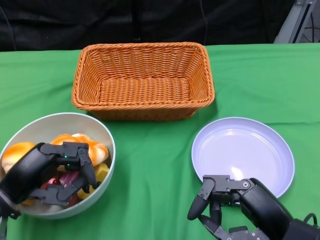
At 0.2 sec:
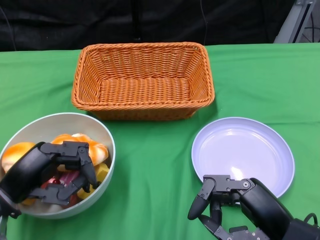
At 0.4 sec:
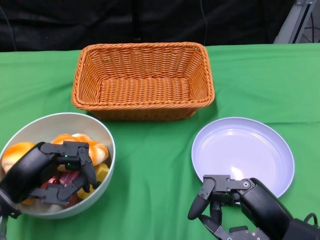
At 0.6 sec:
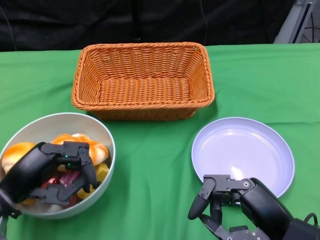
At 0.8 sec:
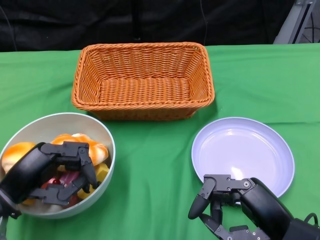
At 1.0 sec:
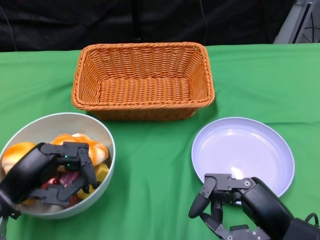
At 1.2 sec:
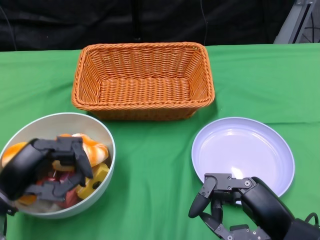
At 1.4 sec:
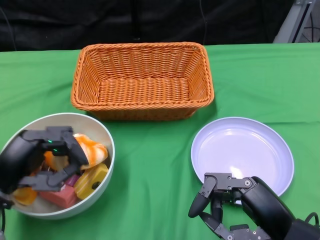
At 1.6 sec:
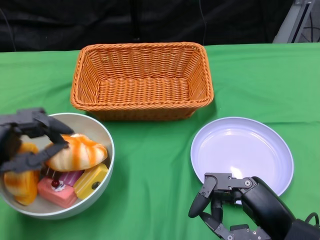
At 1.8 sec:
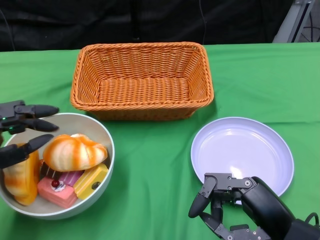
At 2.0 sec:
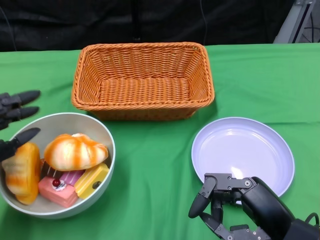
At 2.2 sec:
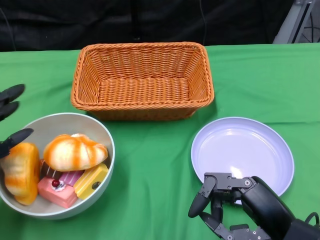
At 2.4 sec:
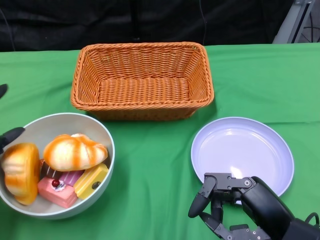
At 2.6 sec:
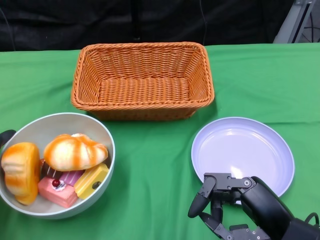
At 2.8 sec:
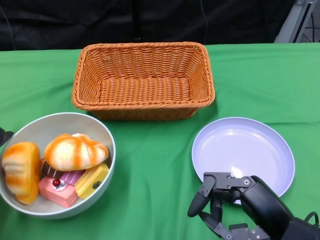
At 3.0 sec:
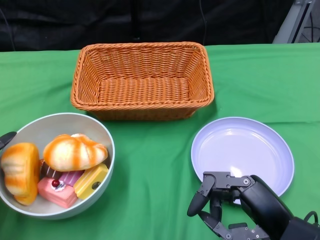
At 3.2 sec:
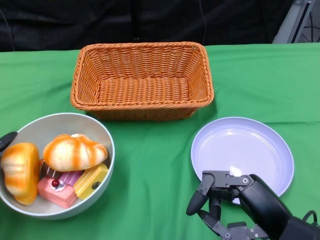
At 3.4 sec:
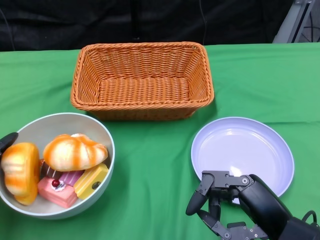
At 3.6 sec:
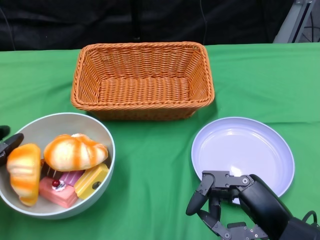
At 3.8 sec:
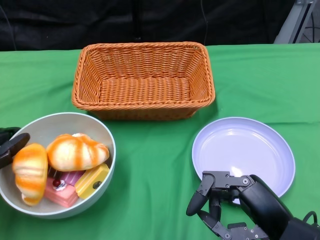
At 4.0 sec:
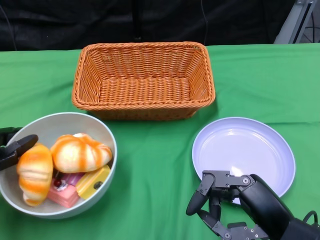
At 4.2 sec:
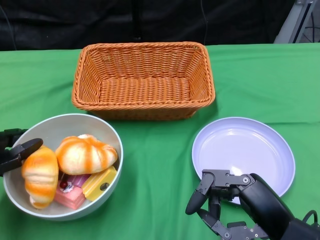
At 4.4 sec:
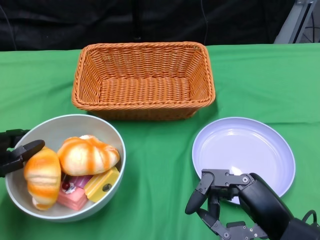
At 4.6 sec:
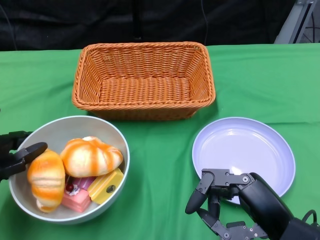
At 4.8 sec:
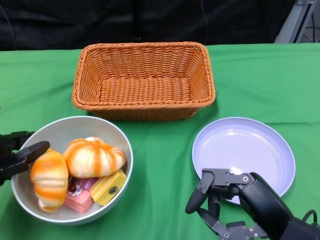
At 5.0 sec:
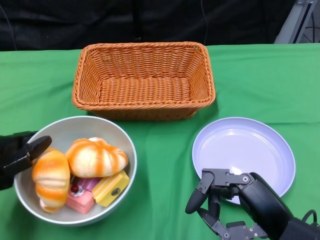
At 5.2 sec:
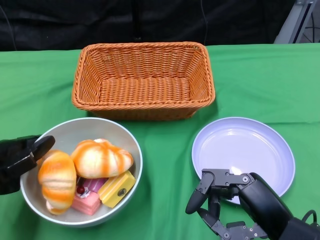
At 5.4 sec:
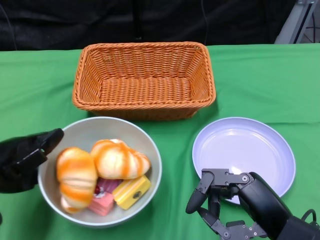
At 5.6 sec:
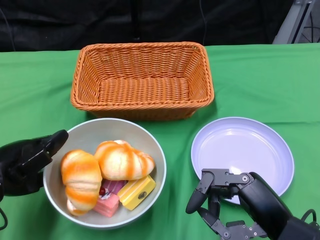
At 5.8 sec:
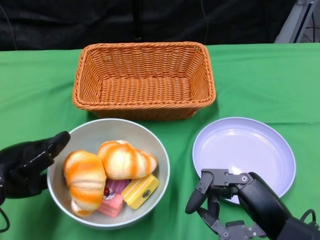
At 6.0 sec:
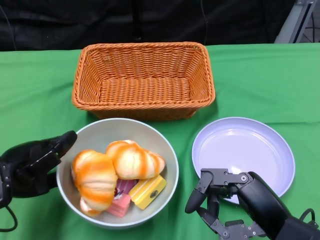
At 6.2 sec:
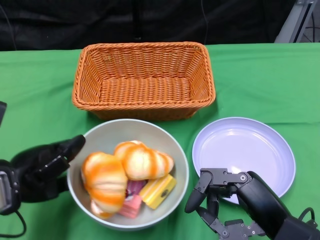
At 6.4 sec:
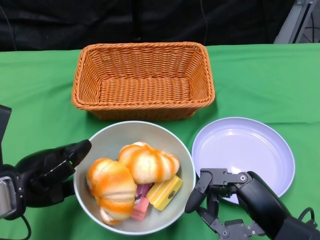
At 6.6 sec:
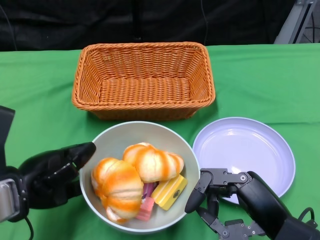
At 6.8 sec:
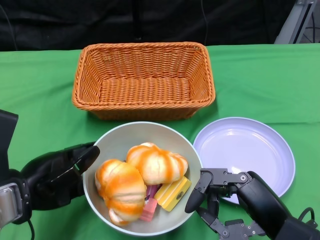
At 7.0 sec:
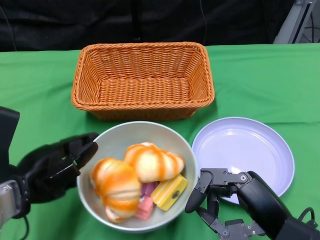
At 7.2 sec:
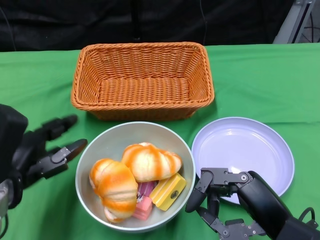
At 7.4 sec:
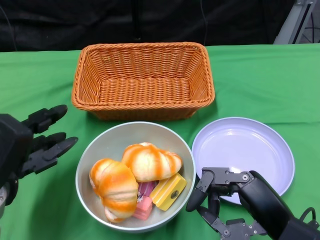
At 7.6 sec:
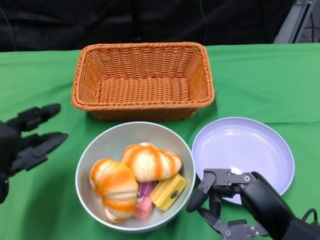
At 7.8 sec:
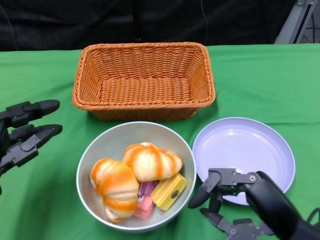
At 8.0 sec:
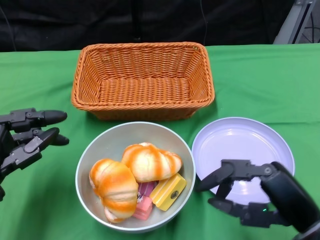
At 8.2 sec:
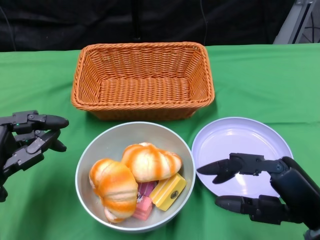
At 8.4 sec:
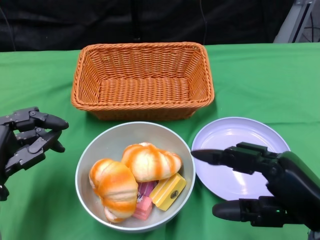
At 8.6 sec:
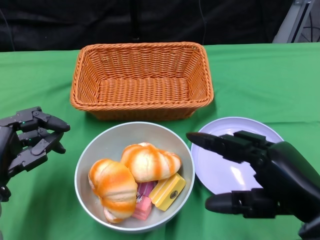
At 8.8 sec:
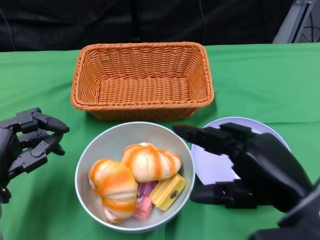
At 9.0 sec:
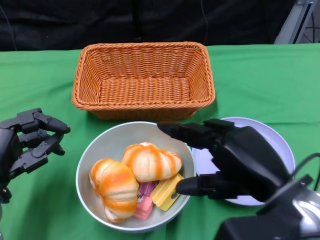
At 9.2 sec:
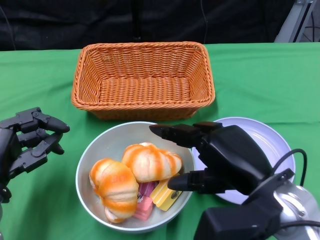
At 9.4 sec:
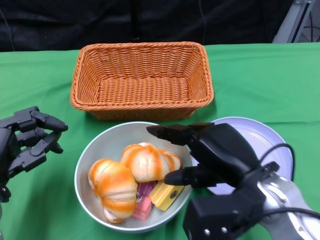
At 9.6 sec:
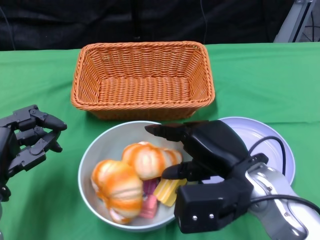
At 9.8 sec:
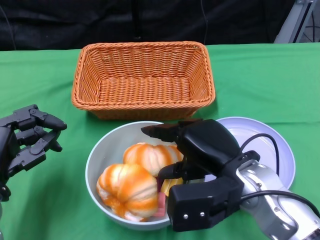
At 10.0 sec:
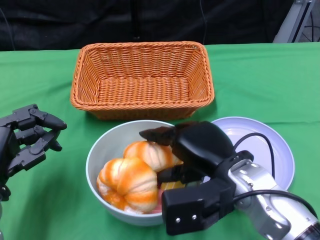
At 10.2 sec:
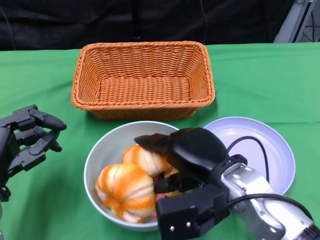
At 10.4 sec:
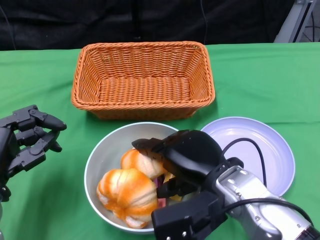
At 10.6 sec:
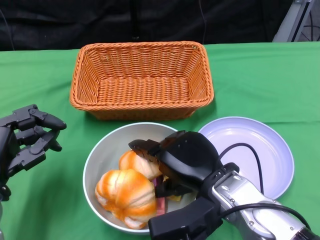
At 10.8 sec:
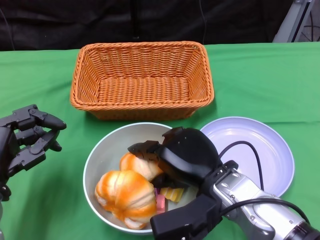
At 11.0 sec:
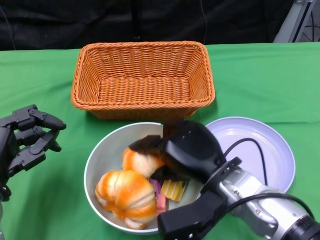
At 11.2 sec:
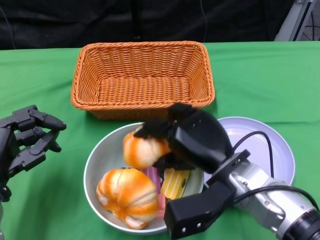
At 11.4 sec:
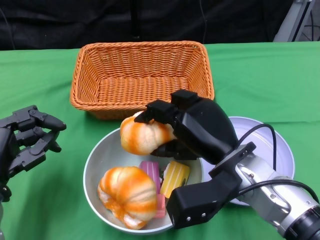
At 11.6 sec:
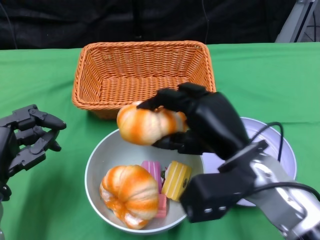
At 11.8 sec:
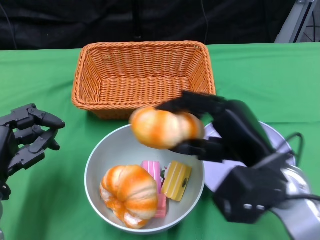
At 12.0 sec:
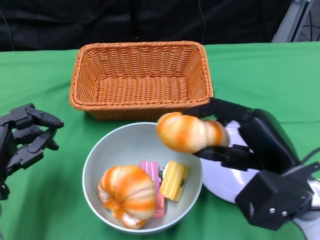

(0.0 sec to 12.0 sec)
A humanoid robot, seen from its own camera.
Step, 0.0 sec - 7.8 sec: Push the bowl to the center of the table using the left gripper.
1.6 sec - 3.0 sec: The left hand ends up some 5 cm from where it was.
4.4 sec - 6.0 sec: The left hand shifts by roughly 5 cm.
7.6 sec - 9.0 sec: The right hand heads upward, covering roughly 5 cm.
9.0 sec - 10.4 sec: The right hand heads to the left and forward, covering some 10 cm.
10.4 sec - 12.0 sec: The right hand travels to the right by approximately 10 cm.

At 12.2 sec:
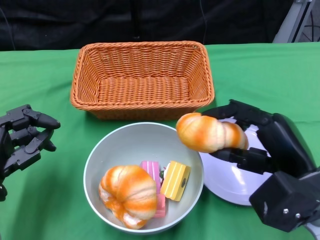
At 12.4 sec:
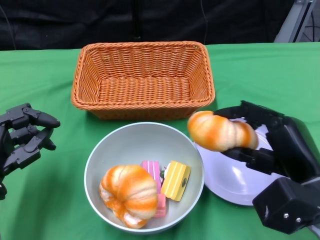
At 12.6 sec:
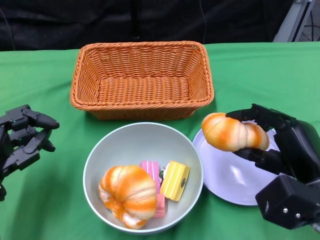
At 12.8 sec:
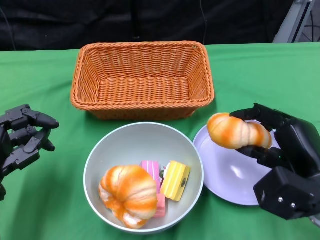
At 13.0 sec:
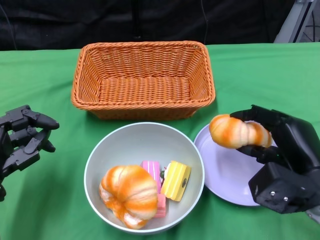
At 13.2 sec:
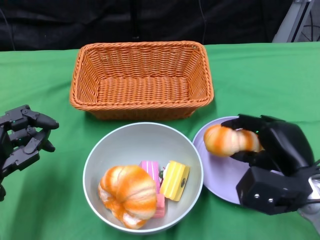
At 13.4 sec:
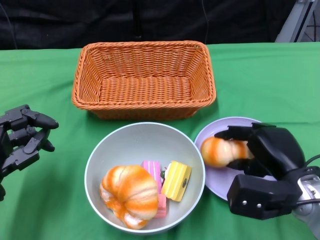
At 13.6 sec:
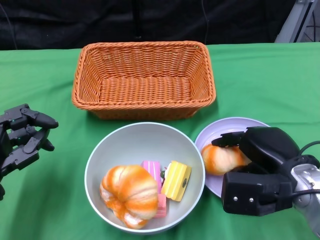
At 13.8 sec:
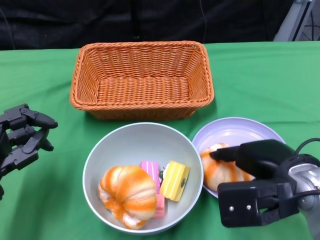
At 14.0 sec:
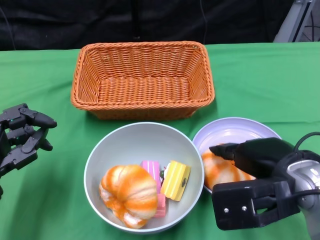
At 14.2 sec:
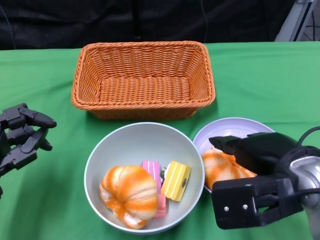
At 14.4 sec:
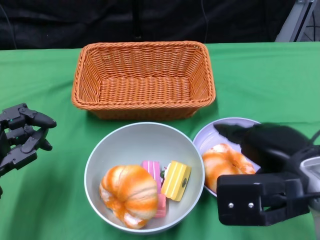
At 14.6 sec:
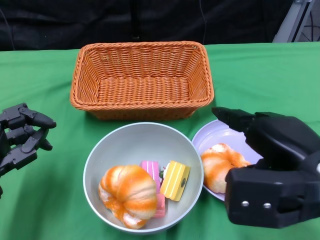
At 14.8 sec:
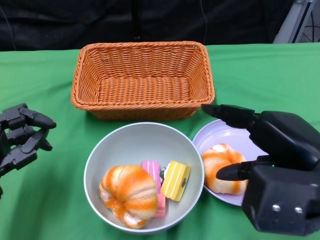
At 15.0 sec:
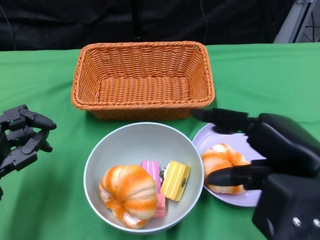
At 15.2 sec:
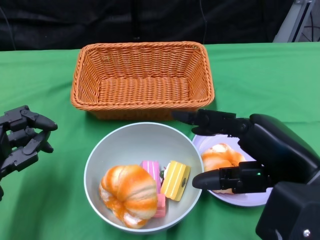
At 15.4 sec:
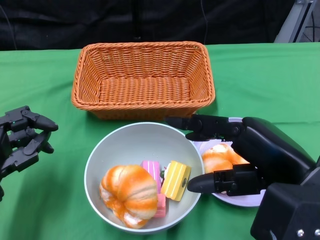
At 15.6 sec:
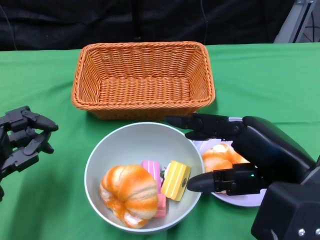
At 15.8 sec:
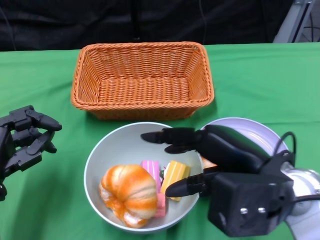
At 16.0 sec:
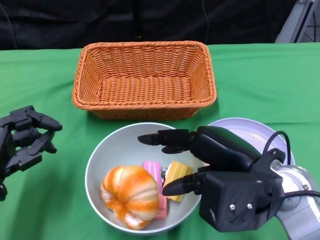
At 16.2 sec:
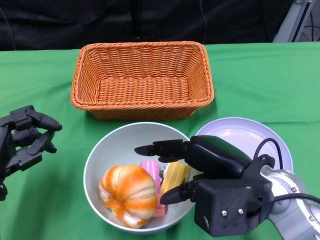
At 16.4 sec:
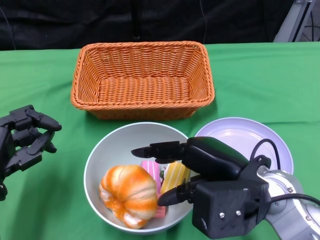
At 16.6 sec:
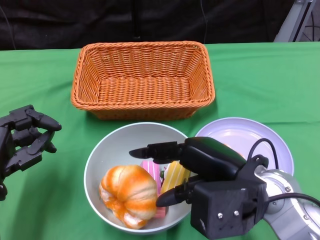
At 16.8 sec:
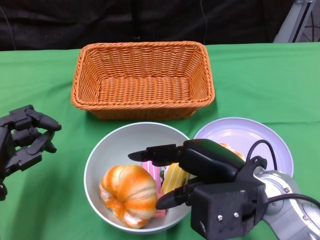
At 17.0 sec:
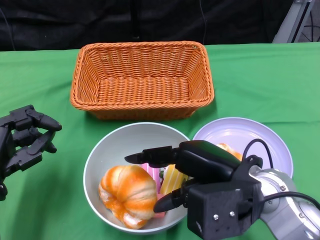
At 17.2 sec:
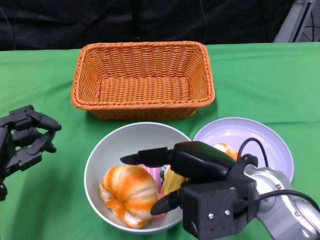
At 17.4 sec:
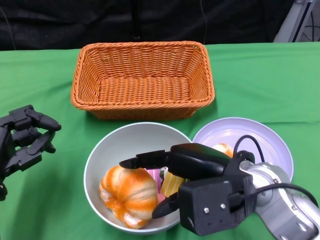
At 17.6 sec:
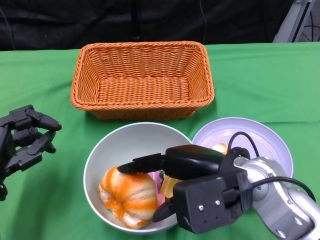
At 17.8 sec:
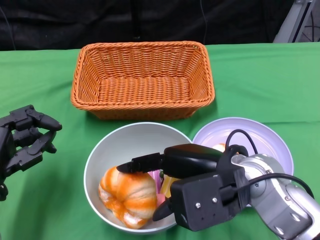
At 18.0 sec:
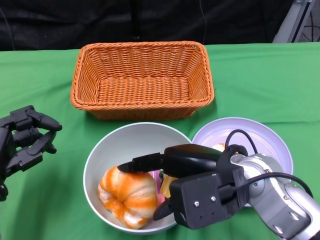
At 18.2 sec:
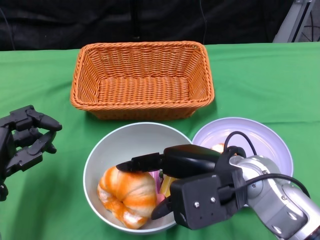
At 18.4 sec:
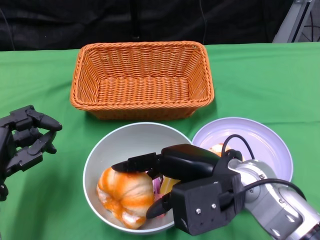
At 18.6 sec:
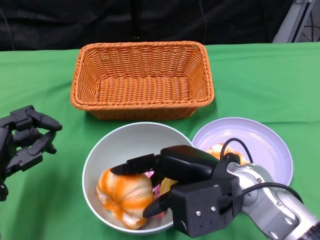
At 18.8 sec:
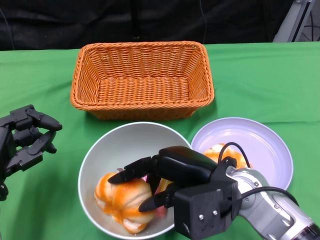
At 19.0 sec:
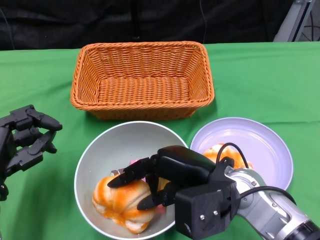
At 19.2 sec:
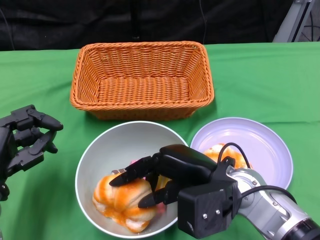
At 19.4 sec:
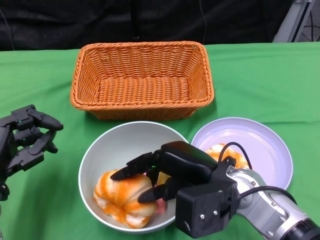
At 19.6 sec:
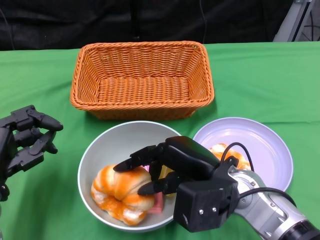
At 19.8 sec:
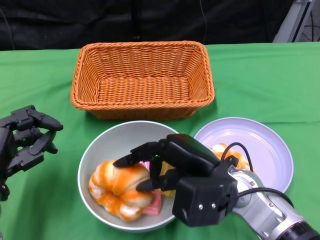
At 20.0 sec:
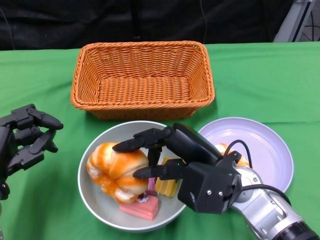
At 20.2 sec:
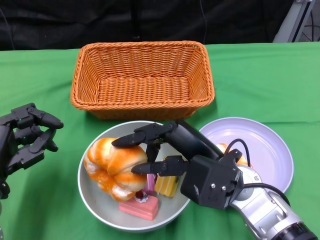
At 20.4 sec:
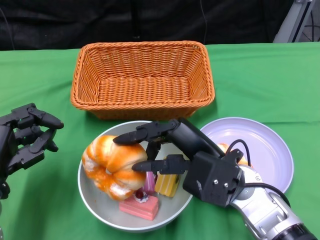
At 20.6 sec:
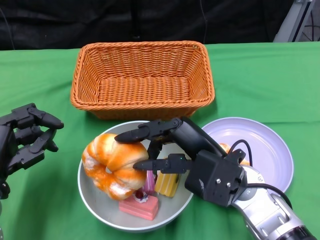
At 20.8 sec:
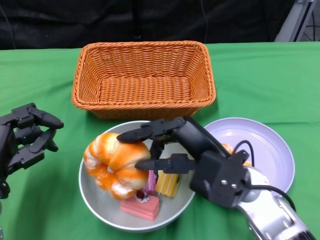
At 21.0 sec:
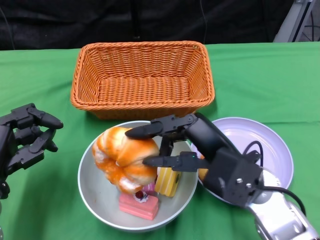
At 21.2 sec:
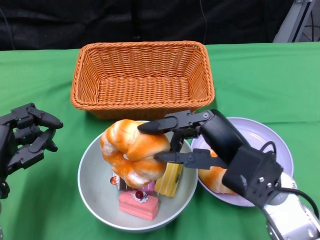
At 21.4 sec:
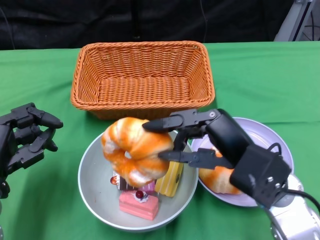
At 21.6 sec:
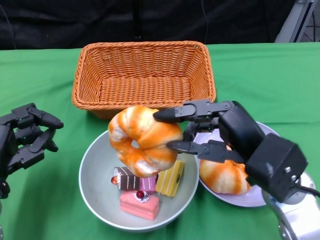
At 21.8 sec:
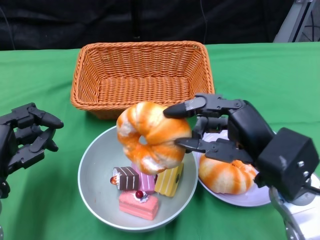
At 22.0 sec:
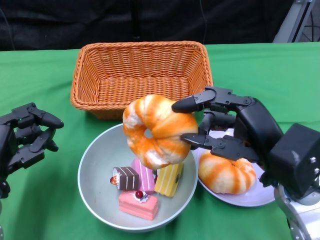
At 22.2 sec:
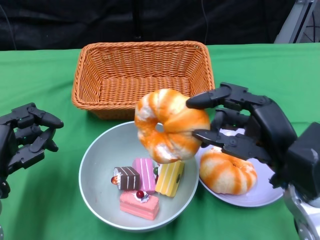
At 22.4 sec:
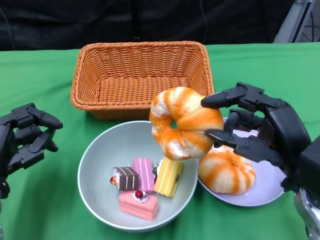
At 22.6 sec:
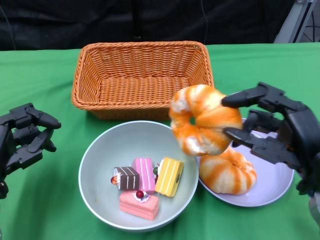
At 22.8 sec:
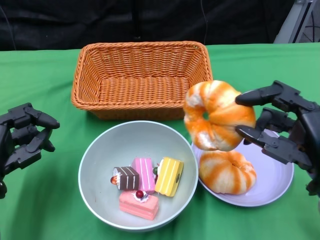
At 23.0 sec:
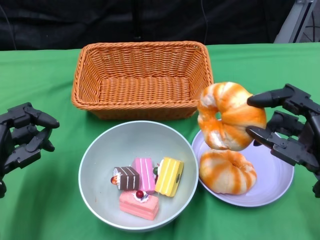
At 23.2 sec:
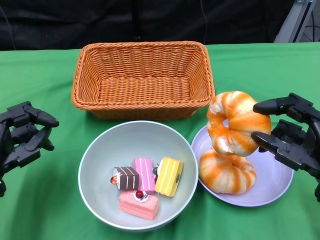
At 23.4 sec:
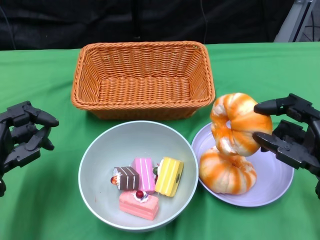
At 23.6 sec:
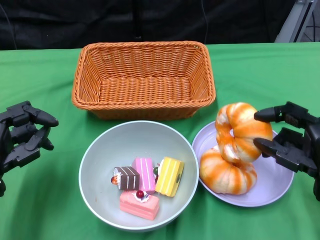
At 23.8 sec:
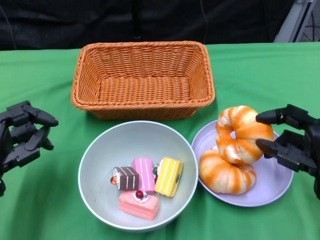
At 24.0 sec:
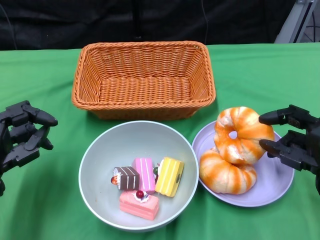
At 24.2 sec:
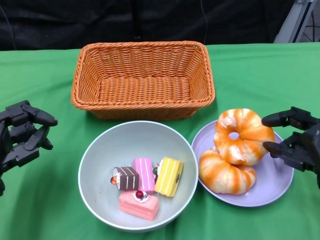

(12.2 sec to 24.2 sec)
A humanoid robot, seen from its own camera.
13.8 sec - 15.2 sec: The right hand heads upward and backward, covering roughly 10 cm.
15.2 sec - 16.6 sec: The right hand goes roughly 10 cm to the left and downward.
16.6 sec - 18.2 sec: The hands move only a little.
21.2 sec - 22.6 sec: The right hand is displaced to the right by about 10 cm.
22.6 sec - 24.2 sec: The right hand shifts some 5 cm downward.
